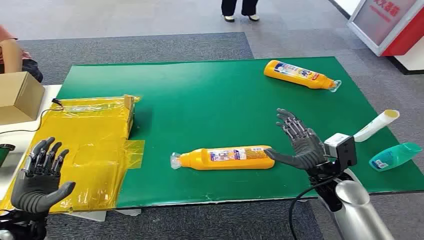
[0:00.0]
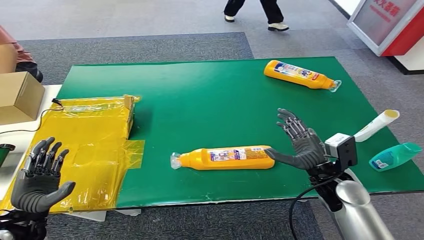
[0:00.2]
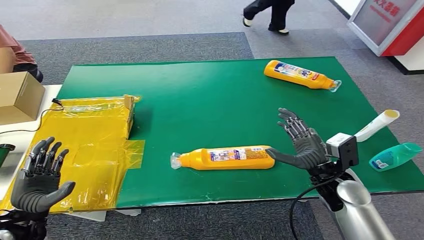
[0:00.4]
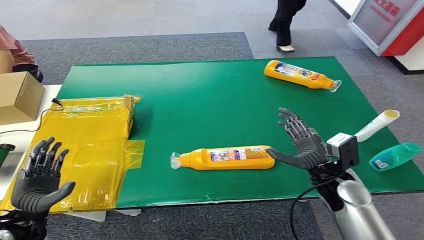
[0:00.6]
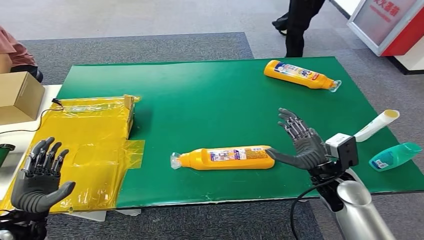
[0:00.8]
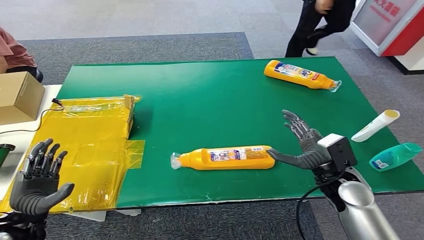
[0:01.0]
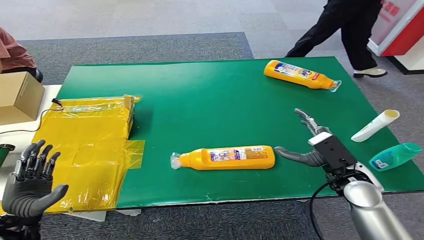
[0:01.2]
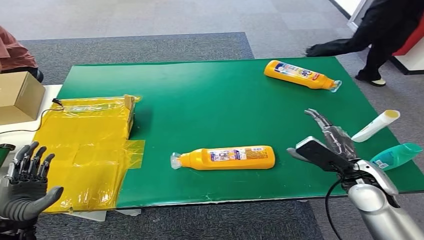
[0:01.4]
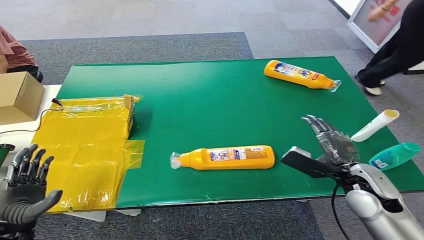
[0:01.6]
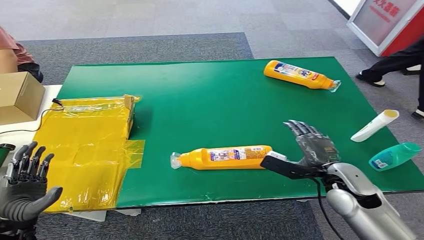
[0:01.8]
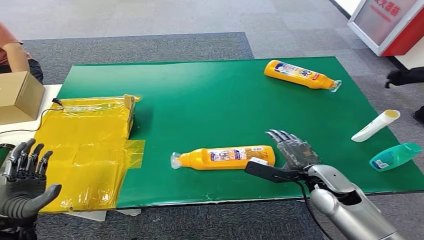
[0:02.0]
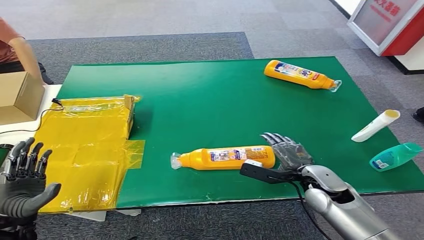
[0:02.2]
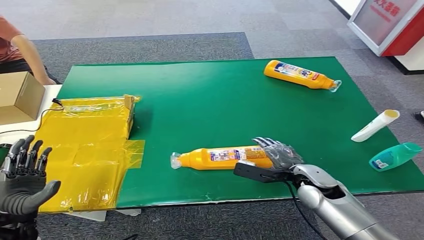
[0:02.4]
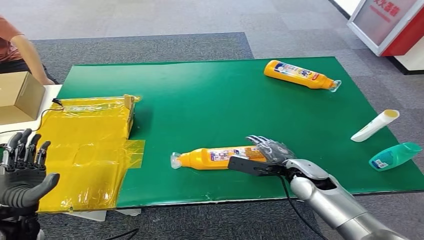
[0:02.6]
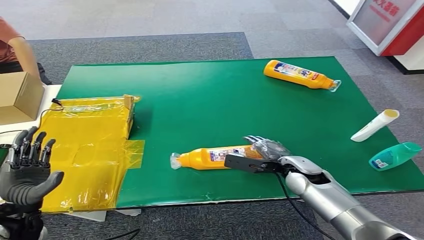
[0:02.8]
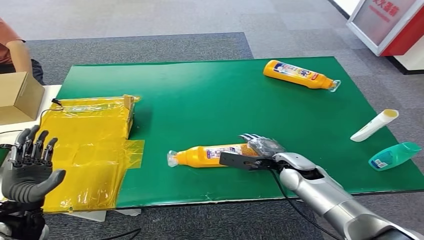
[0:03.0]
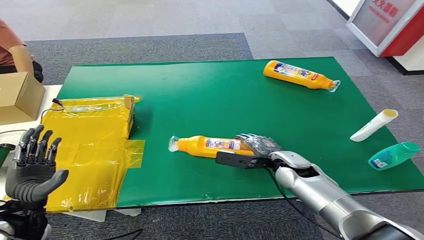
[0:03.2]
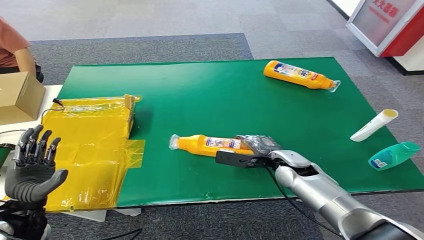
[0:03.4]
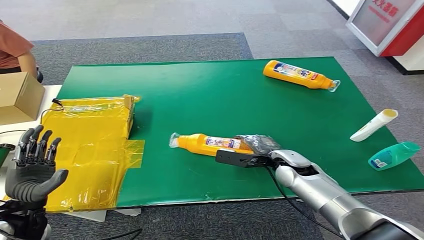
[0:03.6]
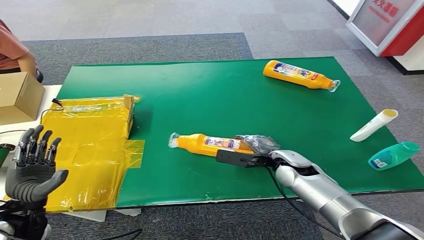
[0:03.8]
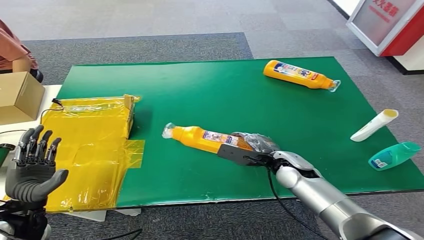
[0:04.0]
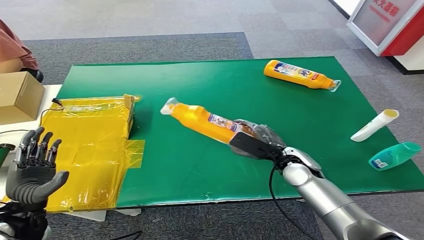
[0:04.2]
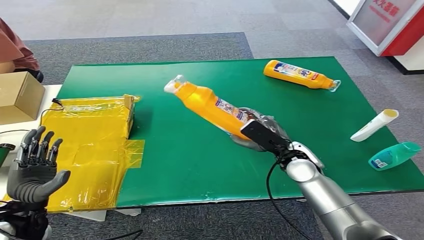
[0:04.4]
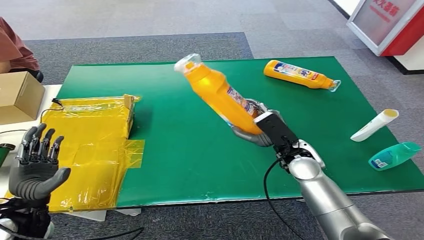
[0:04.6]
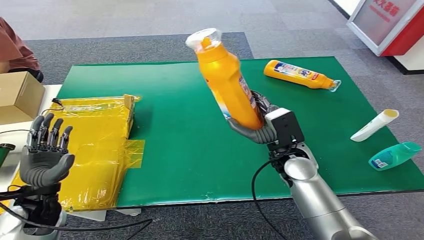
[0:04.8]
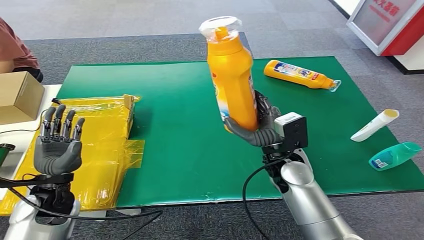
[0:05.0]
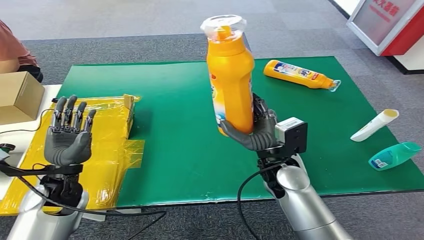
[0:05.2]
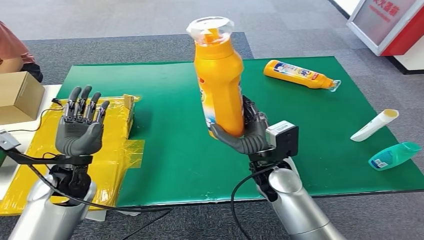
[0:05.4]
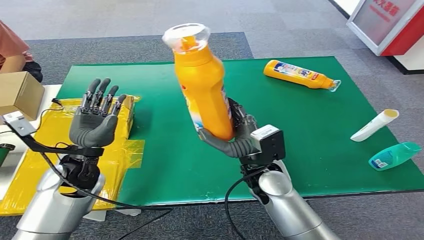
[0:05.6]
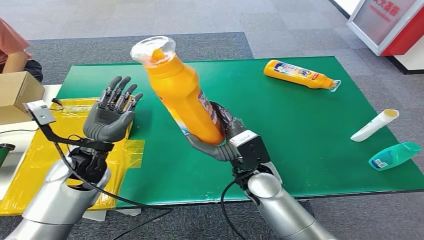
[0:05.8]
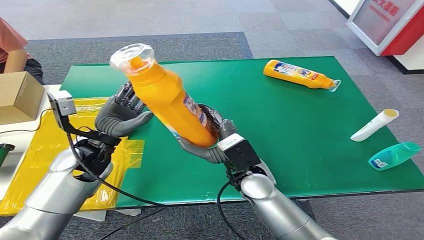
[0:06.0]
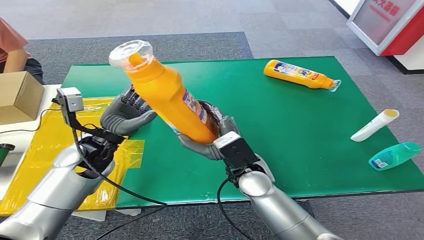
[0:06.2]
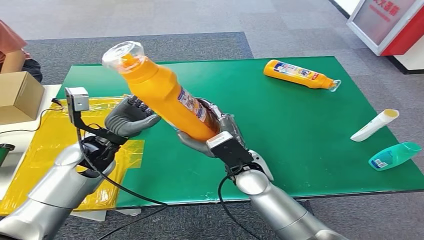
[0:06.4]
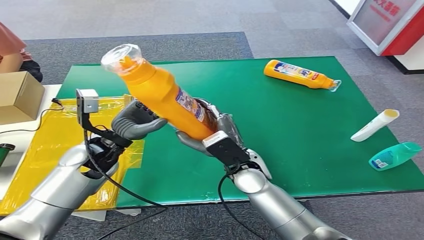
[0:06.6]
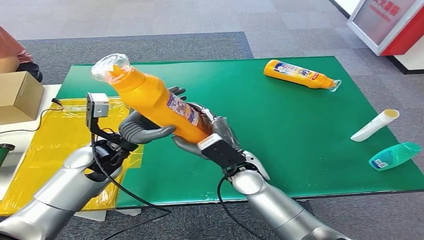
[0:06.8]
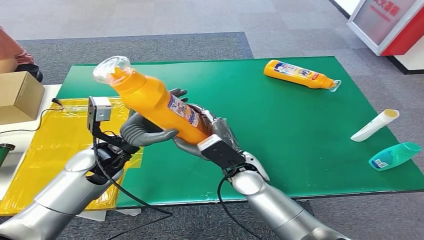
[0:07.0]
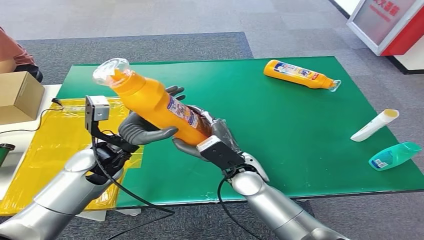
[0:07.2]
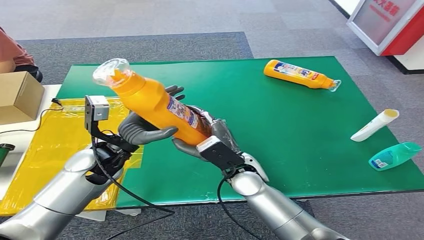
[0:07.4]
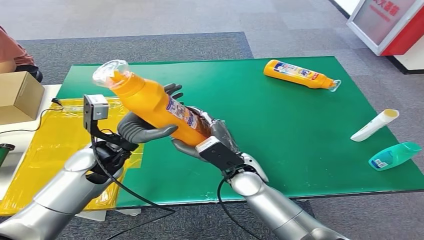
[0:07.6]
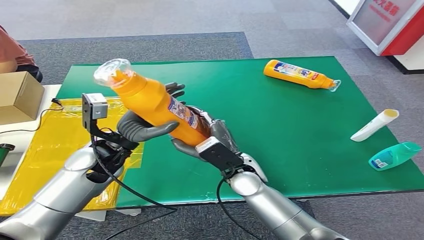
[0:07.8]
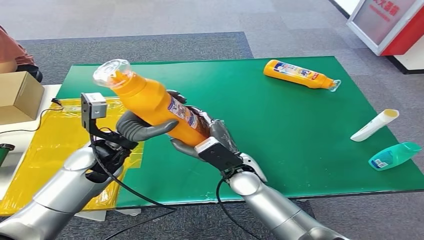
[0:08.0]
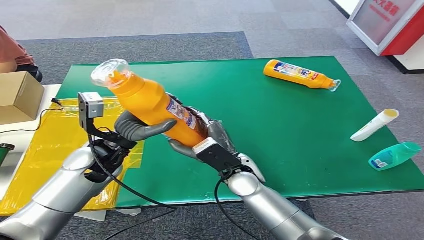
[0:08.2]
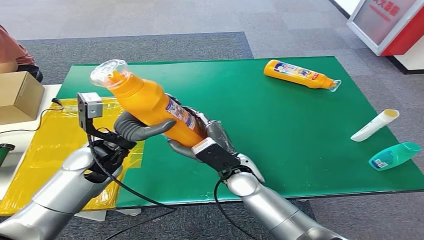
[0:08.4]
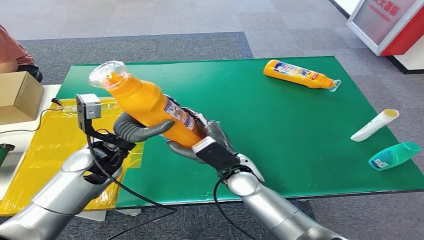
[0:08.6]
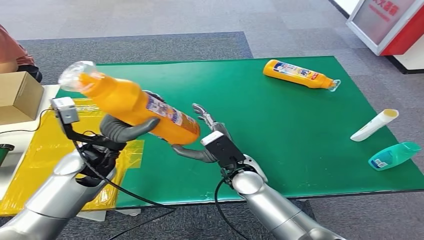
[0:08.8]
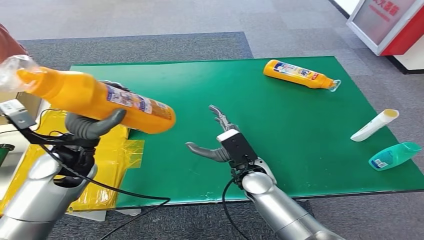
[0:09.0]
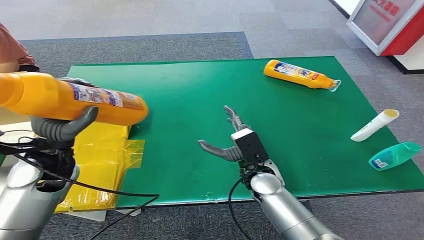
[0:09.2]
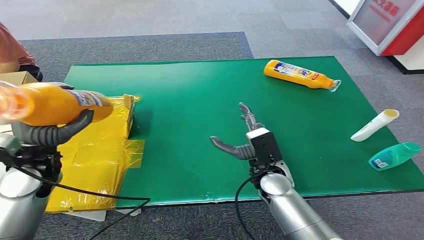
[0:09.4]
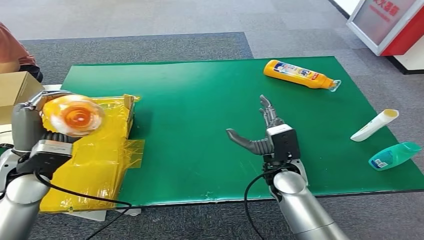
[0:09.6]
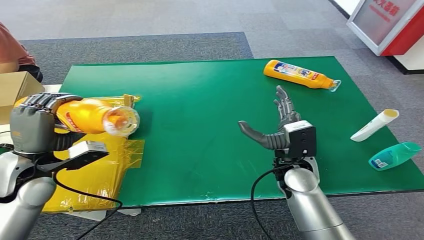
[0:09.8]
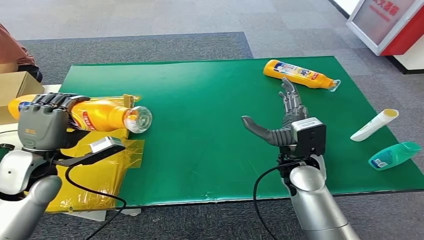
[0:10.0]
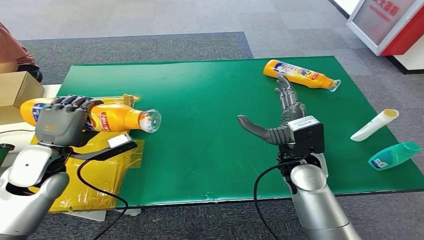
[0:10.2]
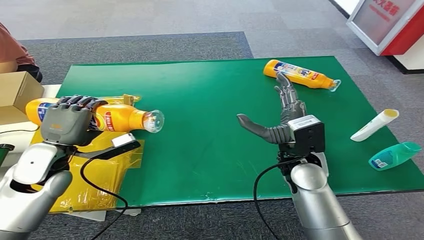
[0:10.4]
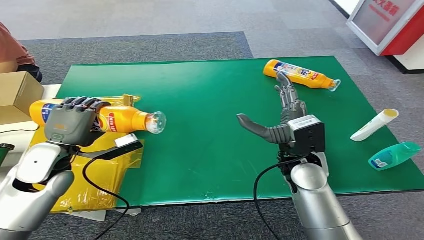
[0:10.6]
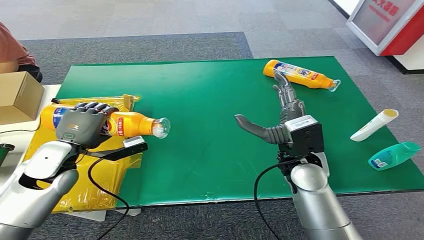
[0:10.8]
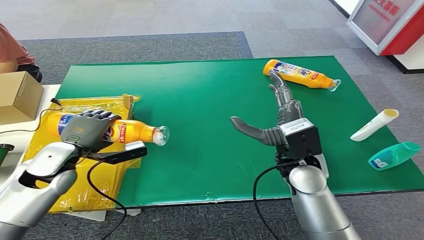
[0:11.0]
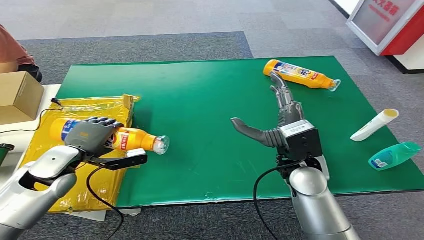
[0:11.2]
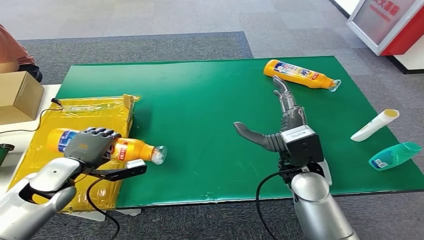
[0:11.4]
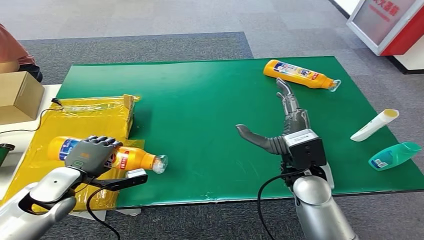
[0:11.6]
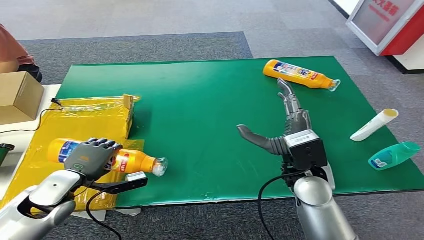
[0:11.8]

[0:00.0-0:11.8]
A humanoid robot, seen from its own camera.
Step, 0:00.0 to 0:05.4: Pick up the bottle from the table.
0:06.0 to 0:08.8: The hands make only small movements.
0:10.4 to 0:11.8: The left hand heads downward, covering roughly 10 cm.

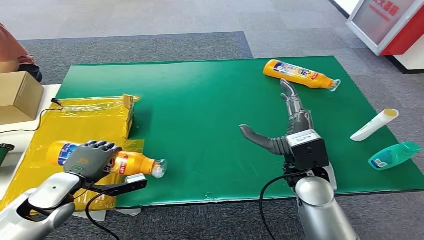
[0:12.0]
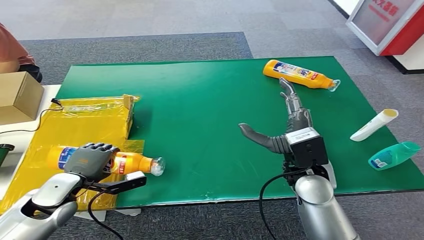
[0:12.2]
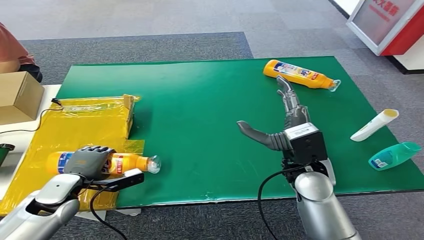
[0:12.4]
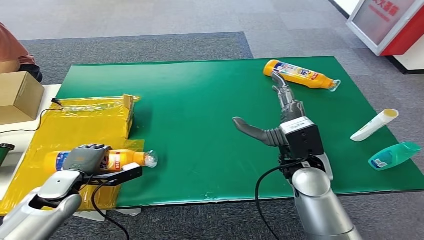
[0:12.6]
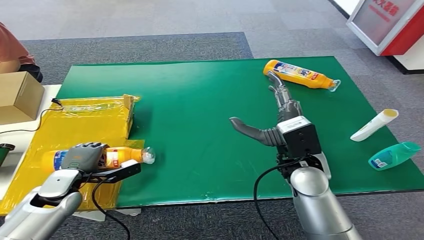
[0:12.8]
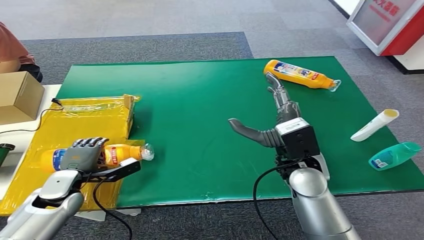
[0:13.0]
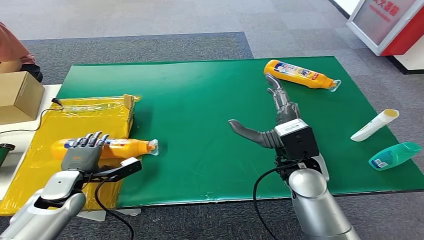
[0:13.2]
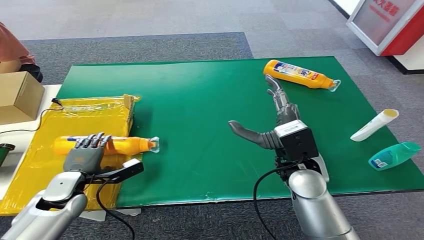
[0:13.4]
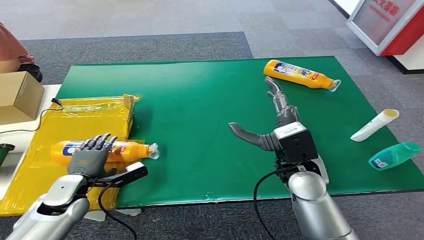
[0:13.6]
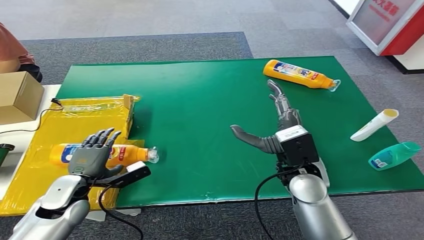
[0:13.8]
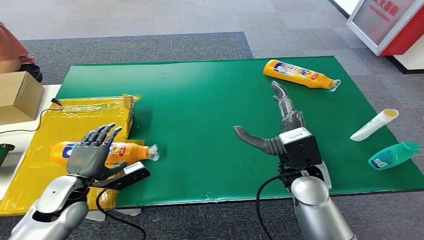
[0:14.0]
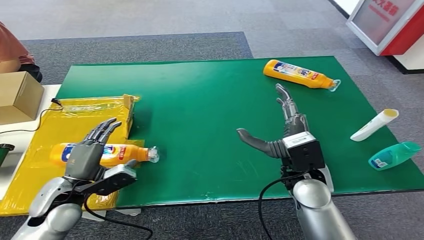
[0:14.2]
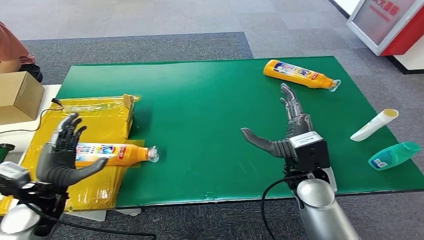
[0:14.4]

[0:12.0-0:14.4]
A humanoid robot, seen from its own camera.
Step, 0:12.0 to 0:14.4: Turn the bottle to the front side.
0:12.0 to 0:13.2: The left hand moves about 5 cm.
0:13.2 to 0:14.4: The left hand heads upward and backward, covering approximately 10 cm.
